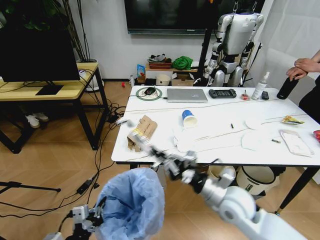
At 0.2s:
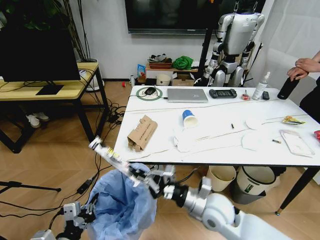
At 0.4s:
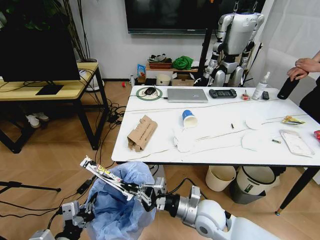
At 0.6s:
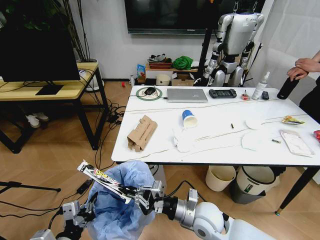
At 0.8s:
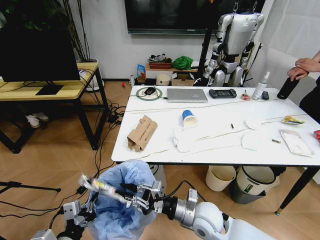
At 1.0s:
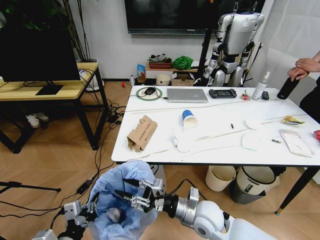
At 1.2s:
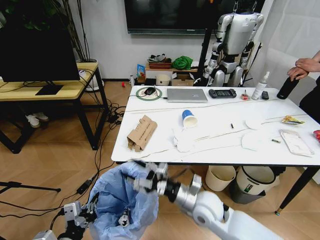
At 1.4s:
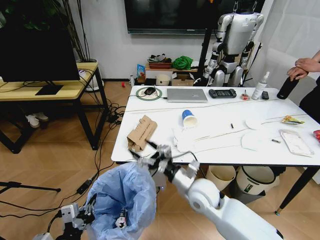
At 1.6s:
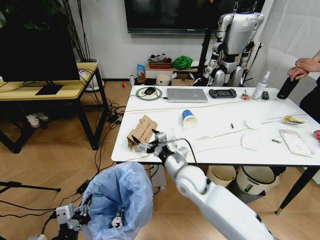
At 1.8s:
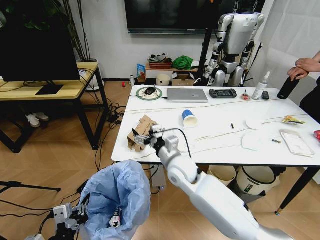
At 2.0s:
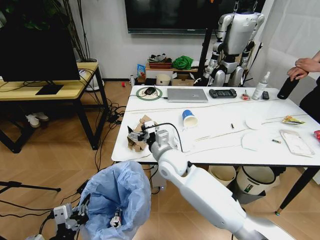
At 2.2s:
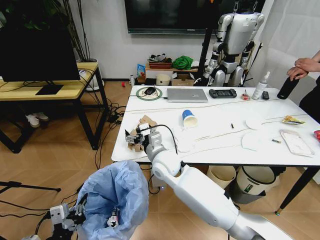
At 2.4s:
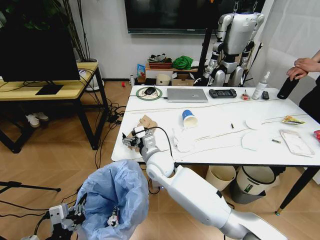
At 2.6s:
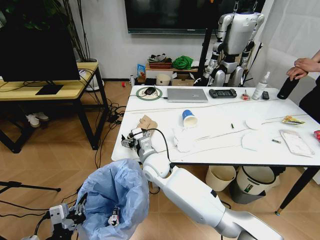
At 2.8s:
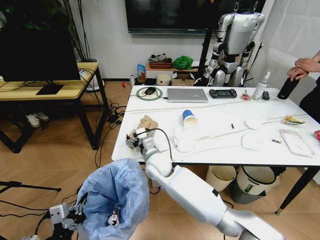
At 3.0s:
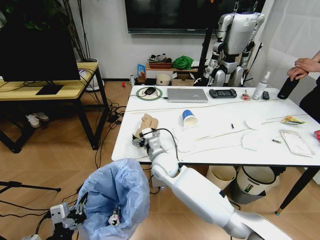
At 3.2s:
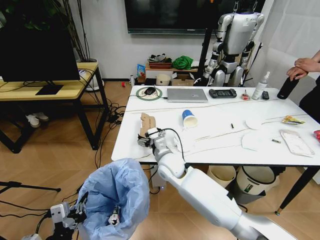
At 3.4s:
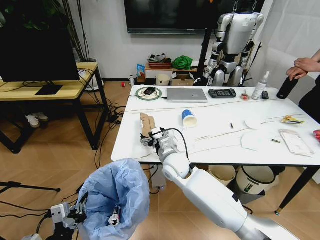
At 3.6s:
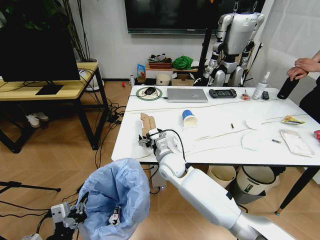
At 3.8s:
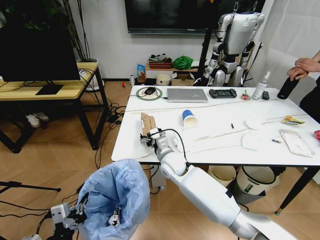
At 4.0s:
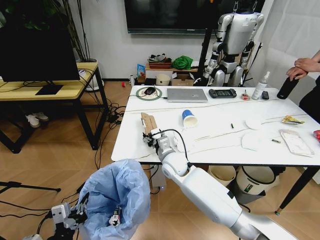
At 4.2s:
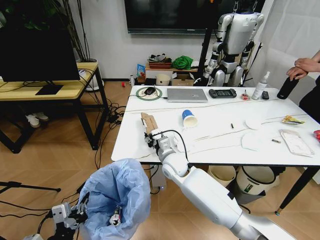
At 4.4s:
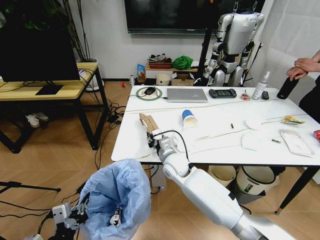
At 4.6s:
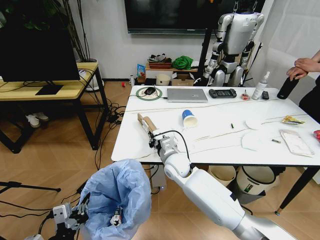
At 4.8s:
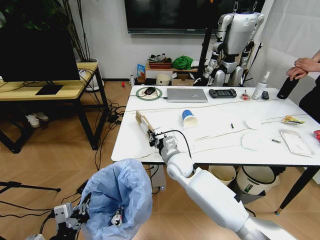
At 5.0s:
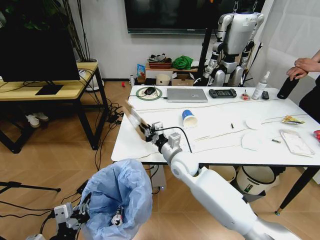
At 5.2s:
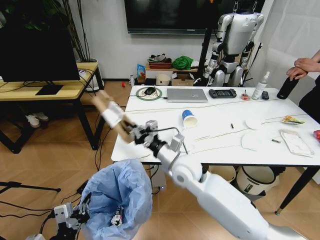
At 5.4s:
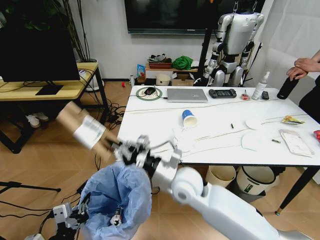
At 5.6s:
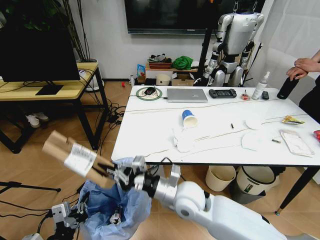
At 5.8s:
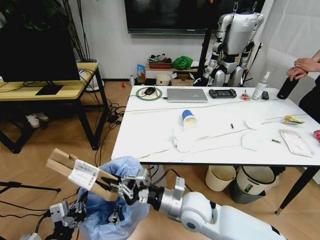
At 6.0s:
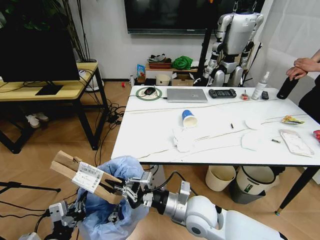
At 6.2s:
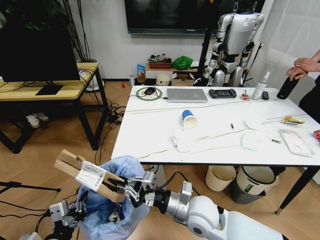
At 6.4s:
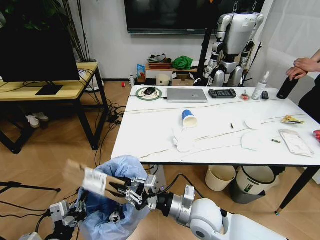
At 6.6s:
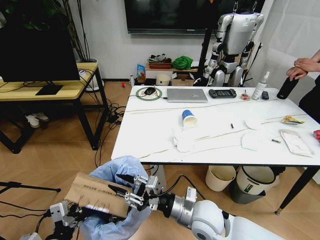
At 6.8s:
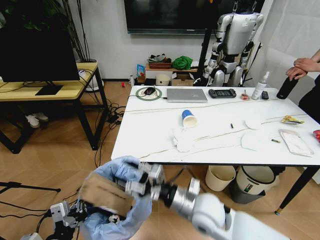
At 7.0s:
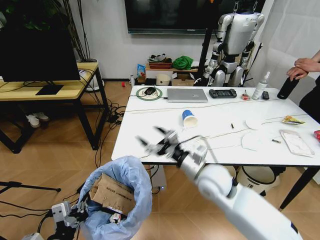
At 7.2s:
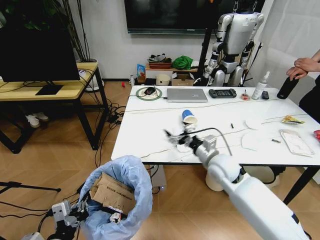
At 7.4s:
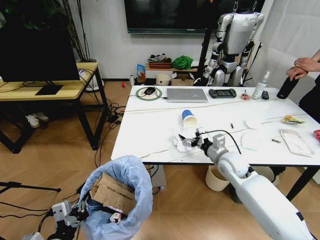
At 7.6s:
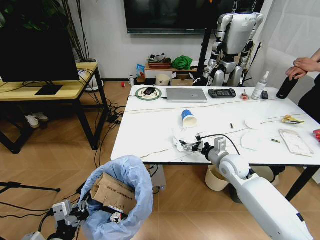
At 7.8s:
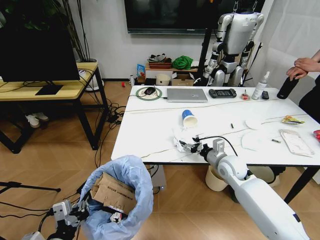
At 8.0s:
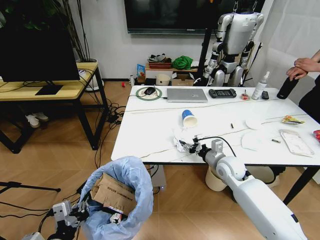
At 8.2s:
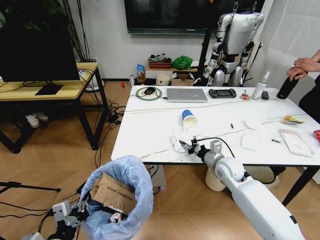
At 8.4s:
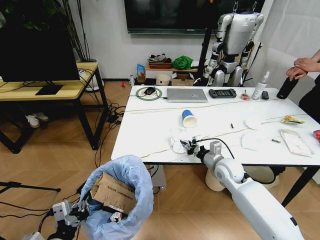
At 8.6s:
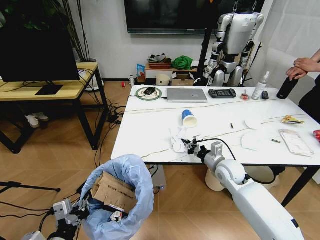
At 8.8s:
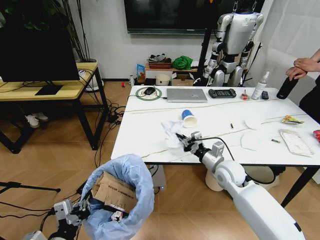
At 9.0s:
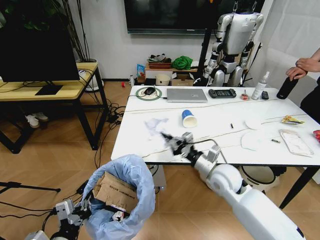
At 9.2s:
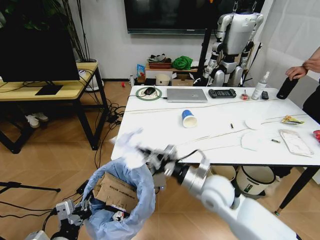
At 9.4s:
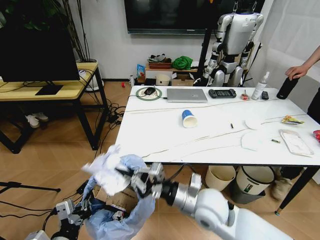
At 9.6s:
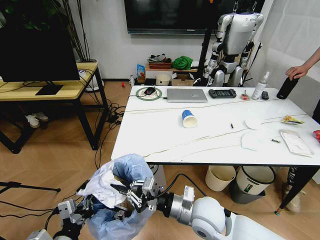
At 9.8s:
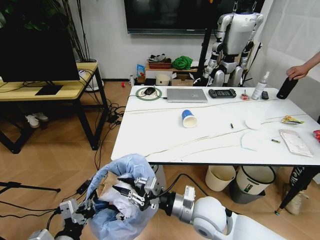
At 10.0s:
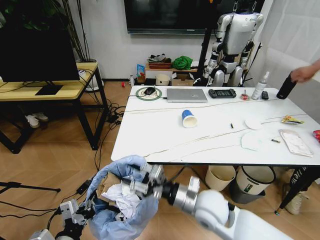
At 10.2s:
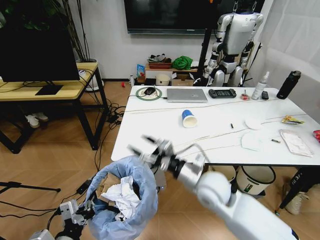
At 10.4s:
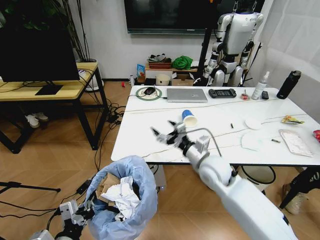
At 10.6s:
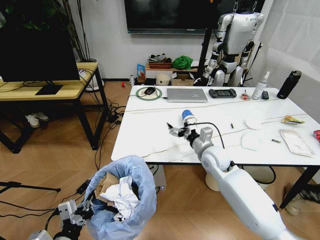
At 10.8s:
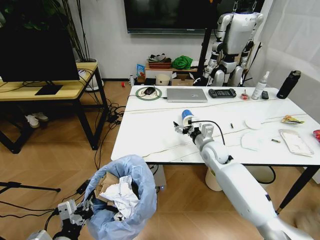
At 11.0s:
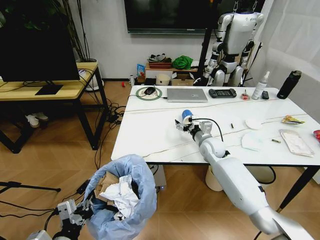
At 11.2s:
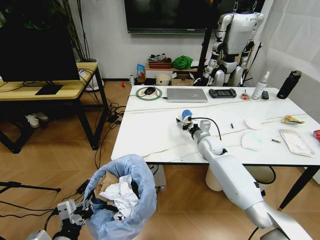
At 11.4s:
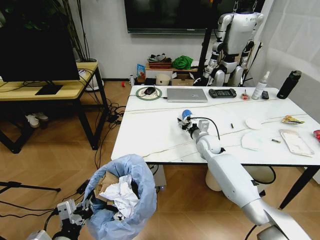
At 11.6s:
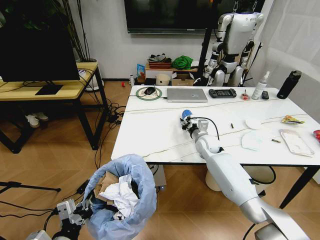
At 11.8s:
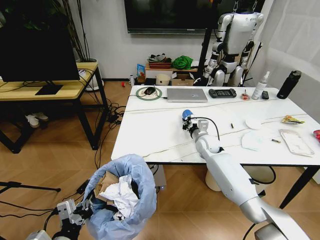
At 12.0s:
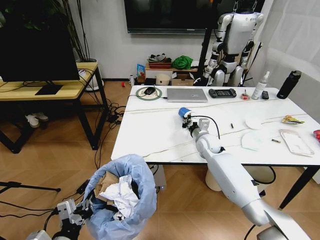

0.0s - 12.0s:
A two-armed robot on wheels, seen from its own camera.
Task of the whole recording: Pick up the trash bin and place the trash from the table into it.
0.0s - 1.6s: The right gripper shifts about 10 cm to the left and forward, and opens.
1.6s - 3.0s: The right gripper shifts some 10 cm to the left and forward.
3.0s - 4.4s: The right gripper closes up.
4.4s - 6.0s: The right gripper is displaced backward by roughly 15 cm.
6.0s - 7.6s: The right gripper goes about 25 cm to the right and forward, and opens its fingers.
7.6s - 9.0s: The right gripper heads to the left and backward, covering some 10 cm, and closes its fingers.
9.0s - 10.4s: The right gripper goes backward and returns, roughly 10 cm each way, and opens up.
10.4s - 12.0s: The right gripper shifts about 15 cm forward, and closes.

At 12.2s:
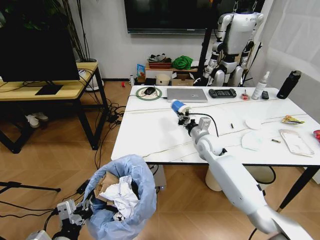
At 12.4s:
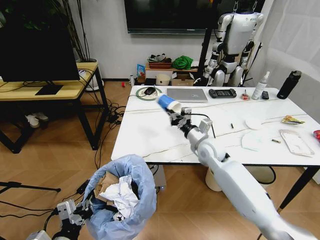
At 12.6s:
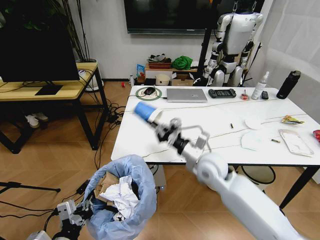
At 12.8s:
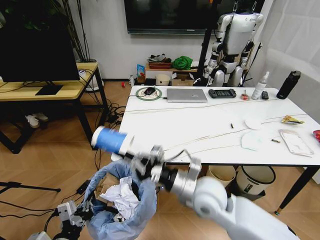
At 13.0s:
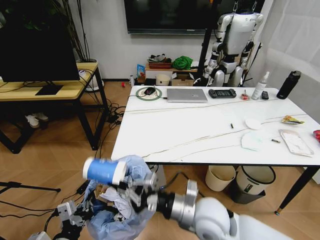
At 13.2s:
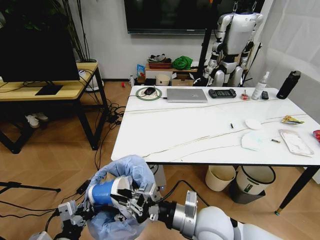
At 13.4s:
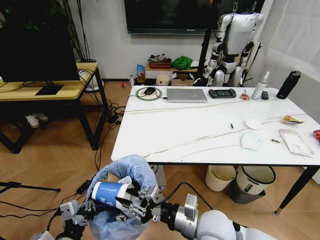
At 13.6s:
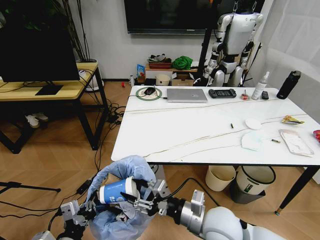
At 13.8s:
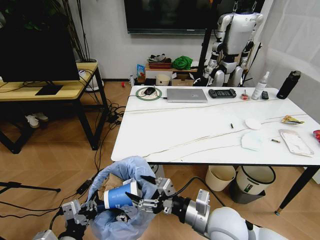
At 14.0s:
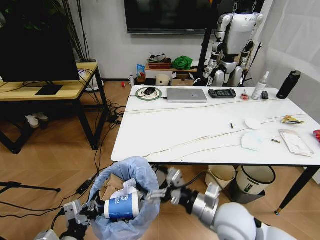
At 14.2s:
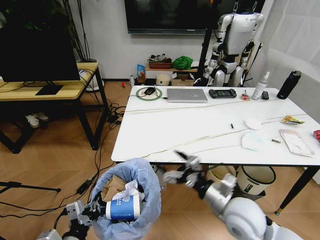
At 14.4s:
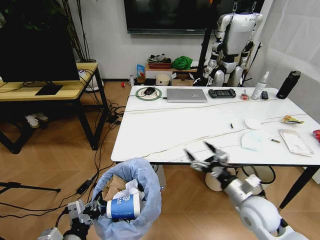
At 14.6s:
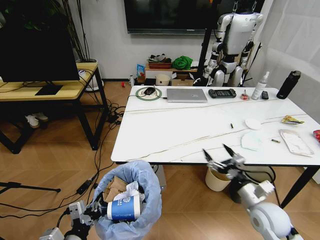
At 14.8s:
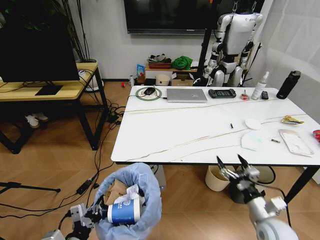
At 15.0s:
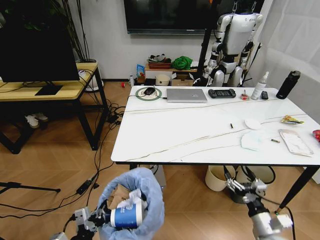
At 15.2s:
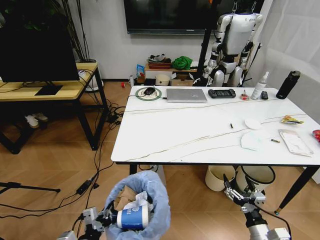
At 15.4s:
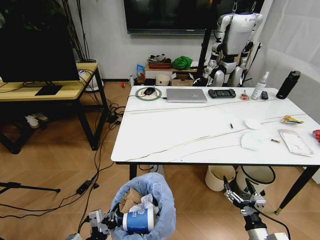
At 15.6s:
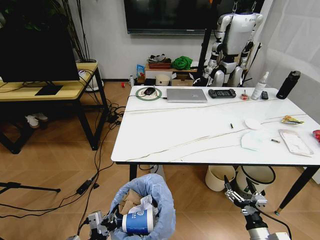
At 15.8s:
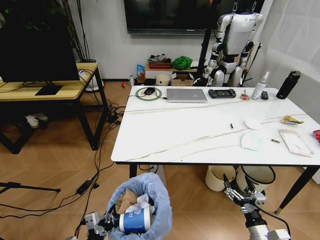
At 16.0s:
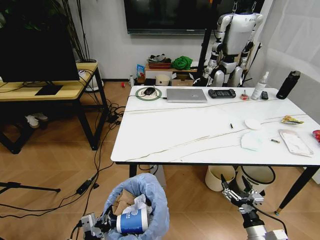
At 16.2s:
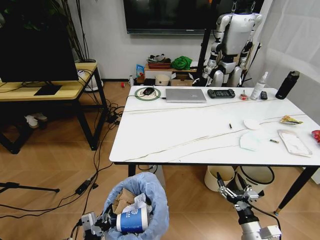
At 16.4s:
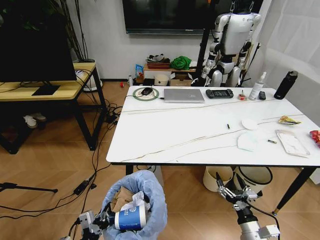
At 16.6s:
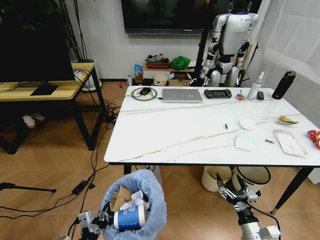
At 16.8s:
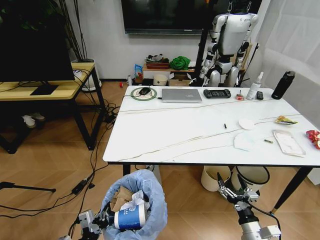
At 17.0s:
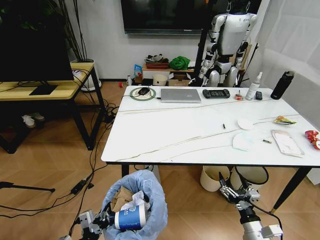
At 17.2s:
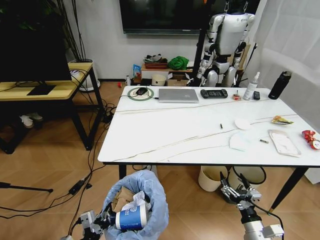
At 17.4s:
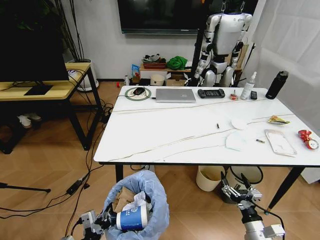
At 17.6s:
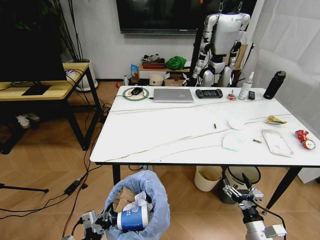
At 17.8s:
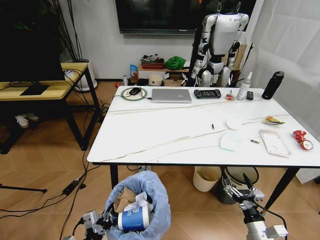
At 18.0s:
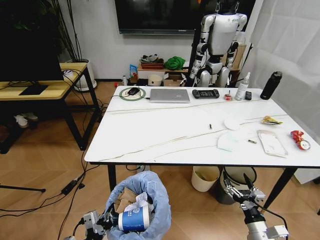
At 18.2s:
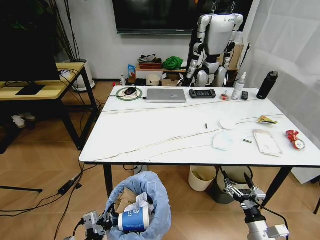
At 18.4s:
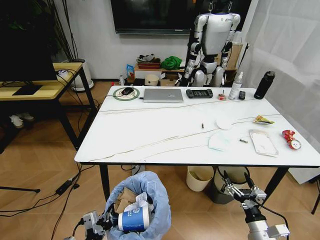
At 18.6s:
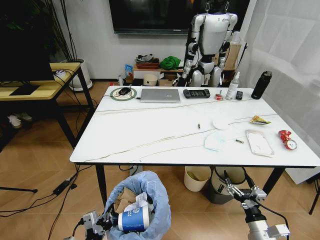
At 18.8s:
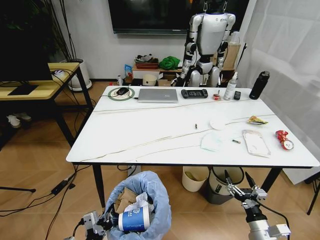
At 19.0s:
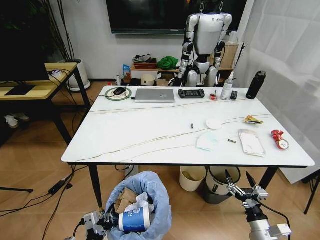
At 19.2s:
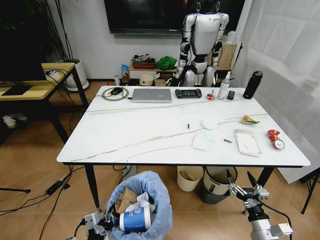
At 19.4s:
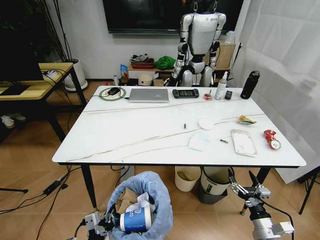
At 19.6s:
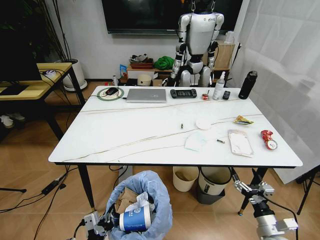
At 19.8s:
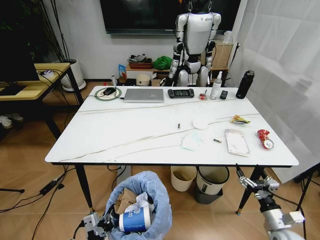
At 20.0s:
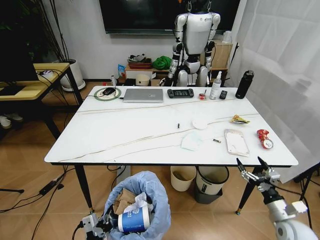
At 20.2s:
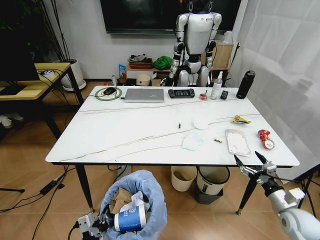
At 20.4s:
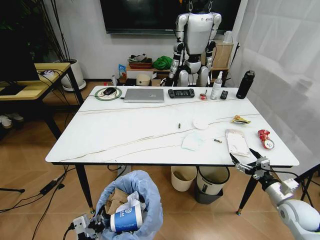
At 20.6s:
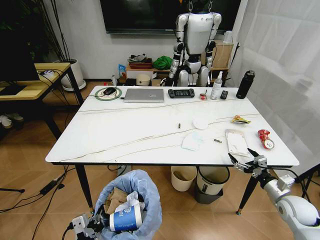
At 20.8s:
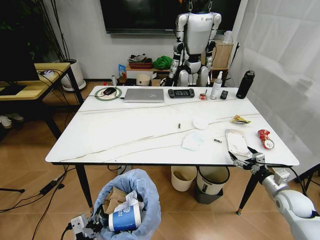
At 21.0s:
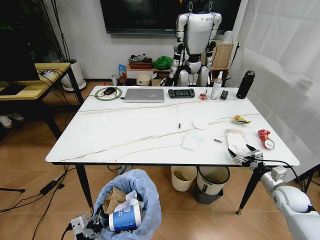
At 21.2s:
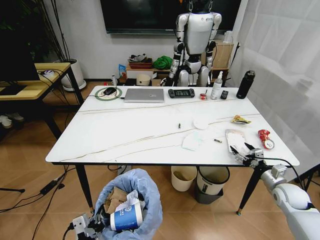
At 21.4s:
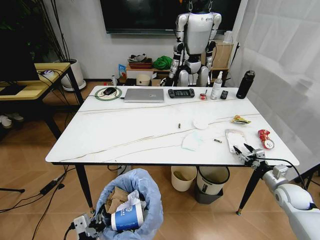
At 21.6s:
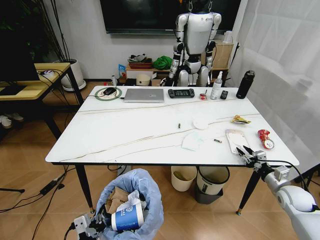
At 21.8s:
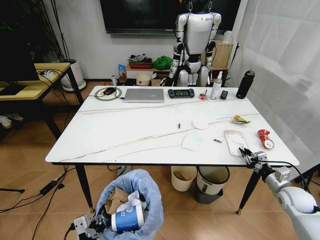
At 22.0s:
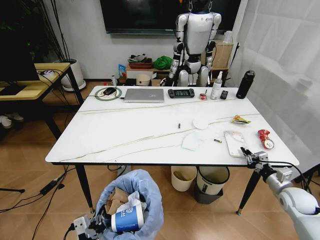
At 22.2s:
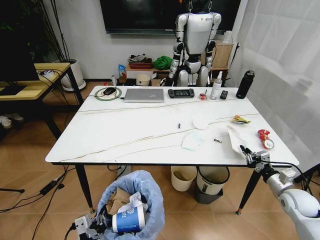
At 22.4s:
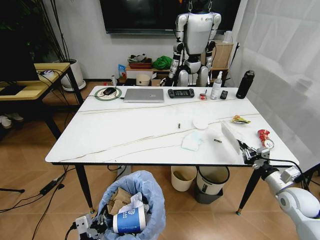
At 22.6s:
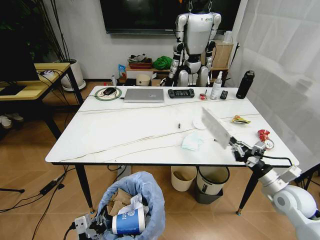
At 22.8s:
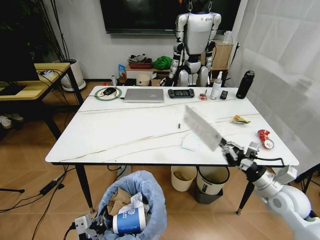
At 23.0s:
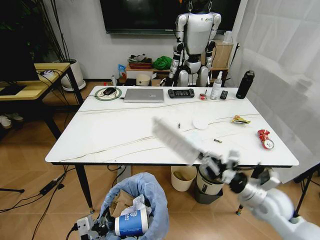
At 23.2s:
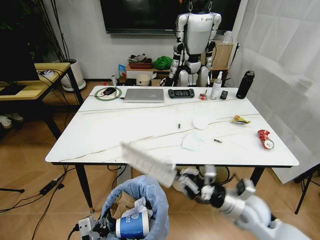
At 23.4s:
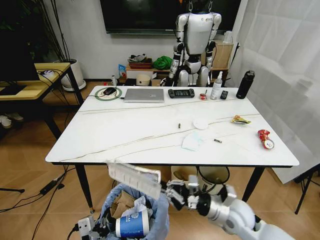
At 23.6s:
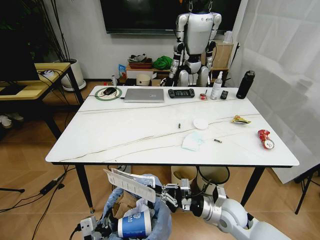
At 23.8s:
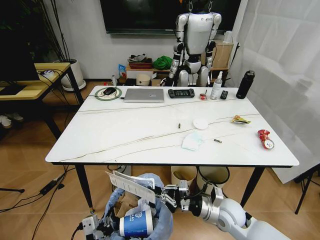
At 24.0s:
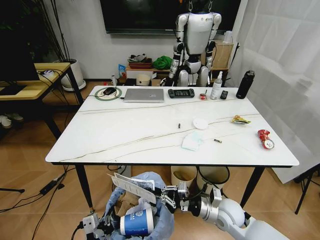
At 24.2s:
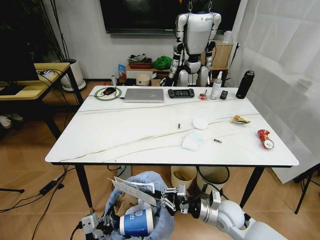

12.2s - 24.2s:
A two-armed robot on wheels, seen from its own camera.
Task of the whole recording: Pick up the trash bin and place the trash from the table into it.
12.2s - 13.8s: The right gripper heads backward, covering roughly 30 cm, and opens up.
13.8s - 15.2s: The left gripper heads downward, covering roughly 5 cm. The right gripper is displaced to the right and downward by approximately 25 cm.
18.2s - 19.8s: The right gripper heads to the right, covering some 5 cm.
19.8s - 21.2s: The right gripper shifts roughly 15 cm forward and to the right.
21.2s - 22.6s: The right gripper goes about 10 cm upward and to the left, and closes its fingers.
22.6s - 24.2s: The right gripper heads to the left and downward, covering approximately 20 cm.
